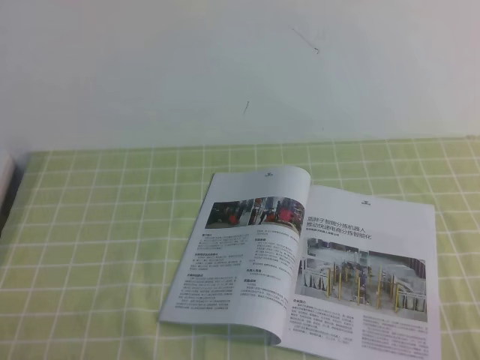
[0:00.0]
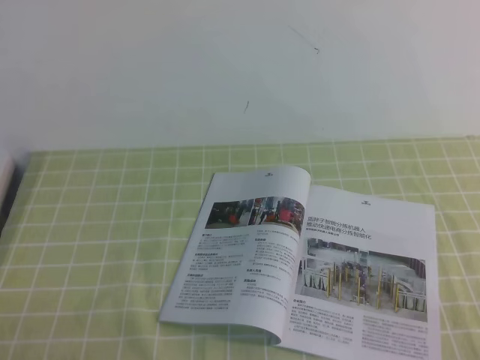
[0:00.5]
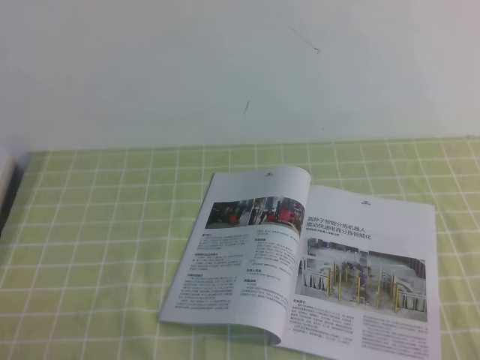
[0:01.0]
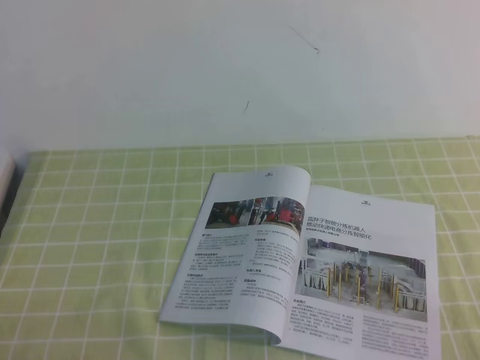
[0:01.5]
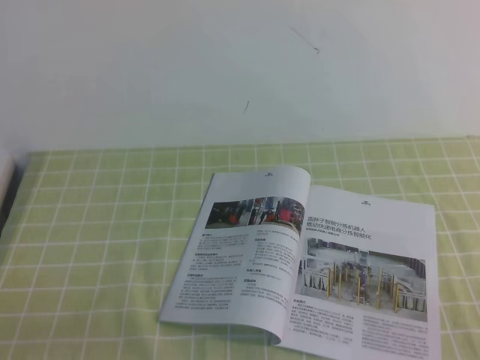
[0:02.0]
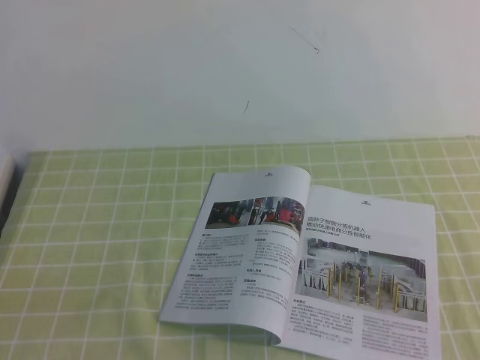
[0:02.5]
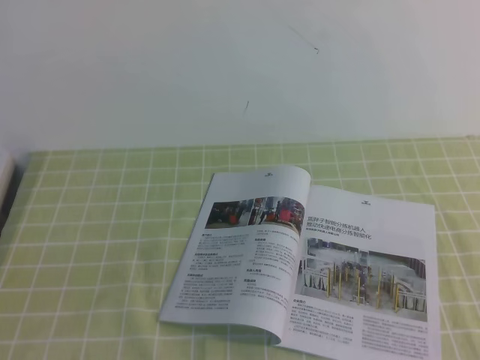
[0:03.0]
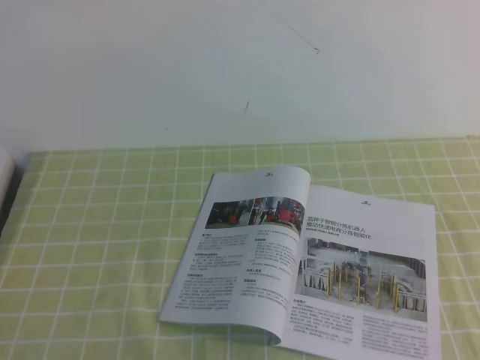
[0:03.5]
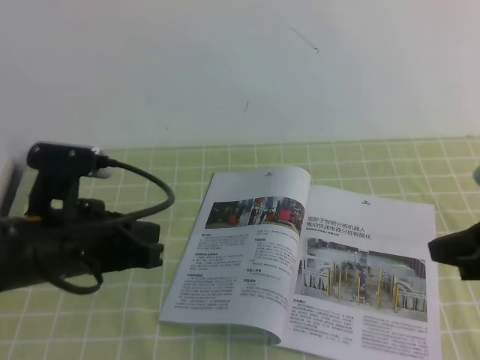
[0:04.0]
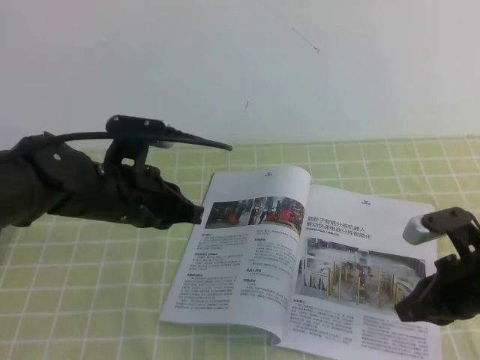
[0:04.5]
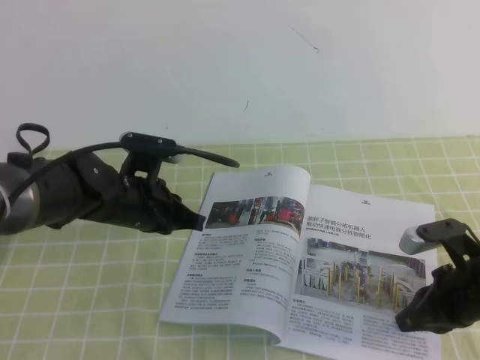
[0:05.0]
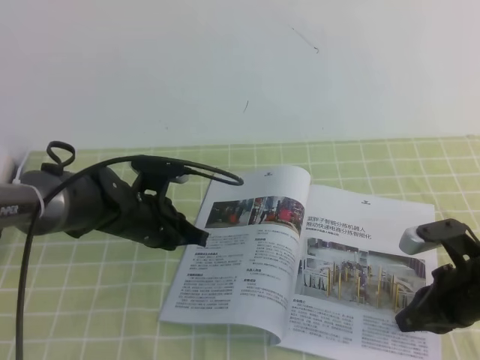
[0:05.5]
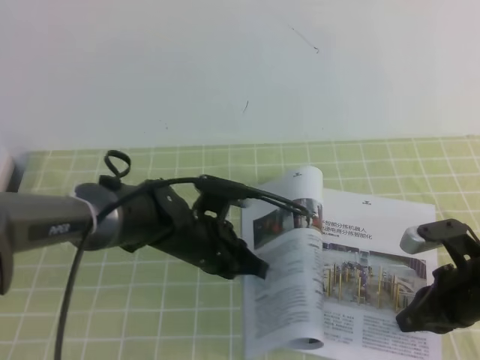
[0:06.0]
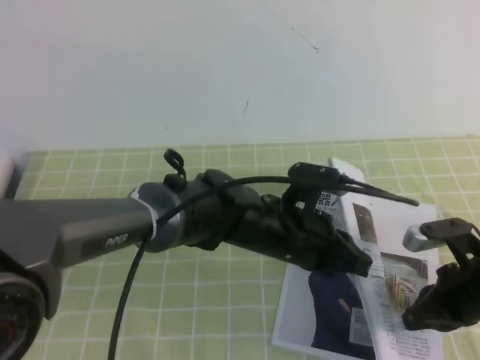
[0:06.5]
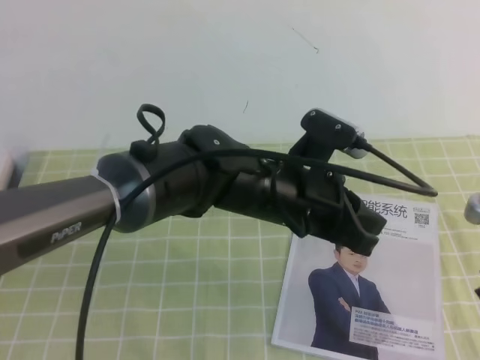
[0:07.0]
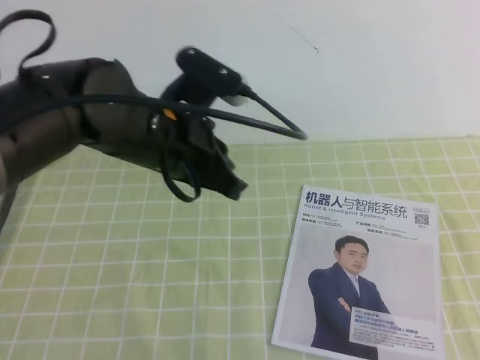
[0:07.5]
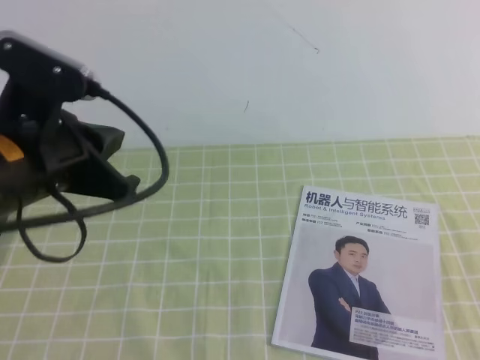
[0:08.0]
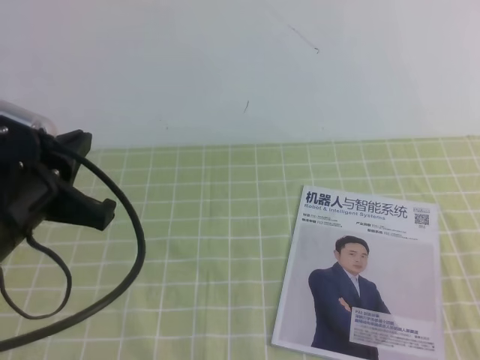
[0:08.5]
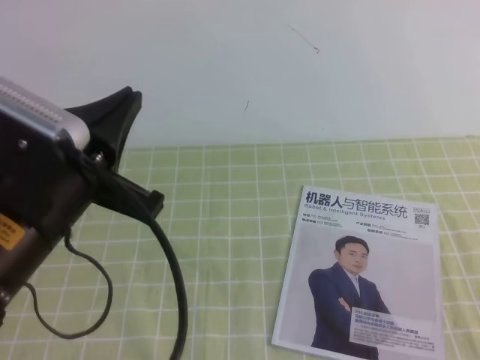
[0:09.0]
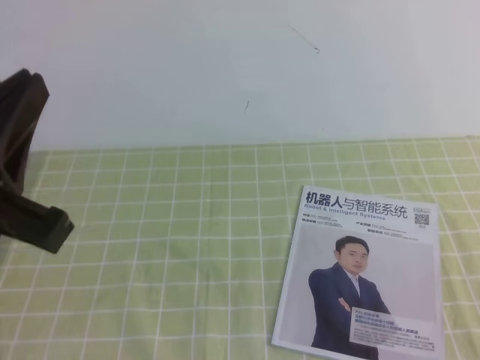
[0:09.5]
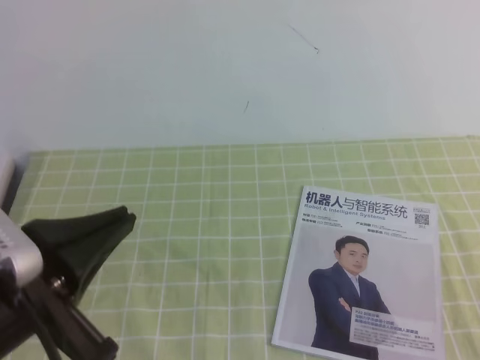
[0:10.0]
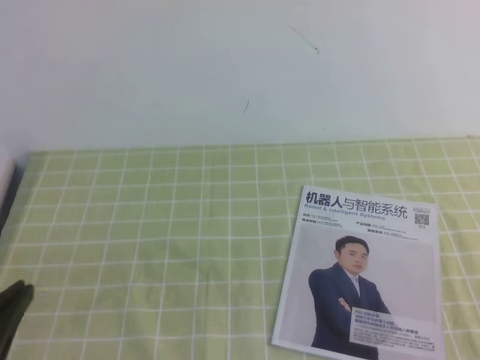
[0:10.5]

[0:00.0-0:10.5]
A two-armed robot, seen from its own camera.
Task of the whole recording: on the green tablecloth, hold the book with one hand and close it with the other.
0:02.0 to 0:04.0: The left gripper travels forward, upward and to the right by approximately 20 cm. Meanwhile the right gripper travels forward by roughly 20 cm.
0:04.0 to 0:06.5: The left gripper goes some 25 cm to the right and downward, while the right gripper is displaced downward by approximately 10 cm.
0:06.5 to 0:08.5: The right gripper shifts roughly 25 cm backward and upward; the left gripper goes some 30 cm to the left, upward and backward.
0:08.5 to 0:10.5: The left gripper moves backward and downward, about 15 cm.
